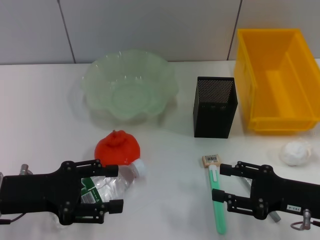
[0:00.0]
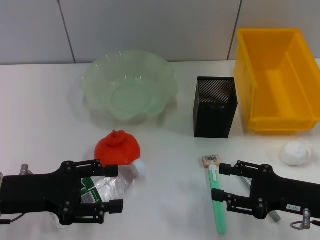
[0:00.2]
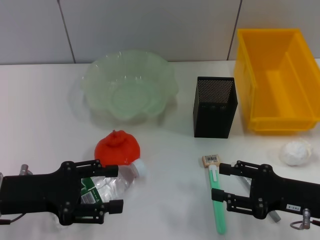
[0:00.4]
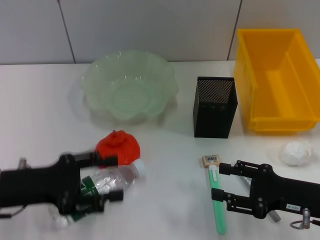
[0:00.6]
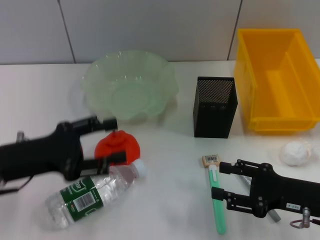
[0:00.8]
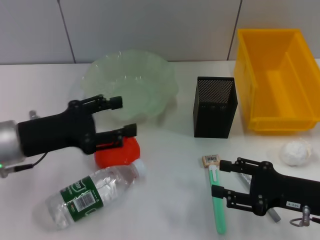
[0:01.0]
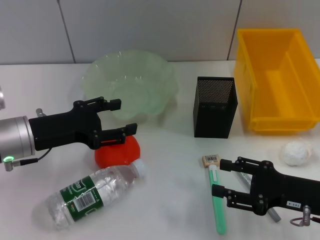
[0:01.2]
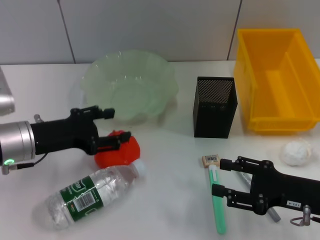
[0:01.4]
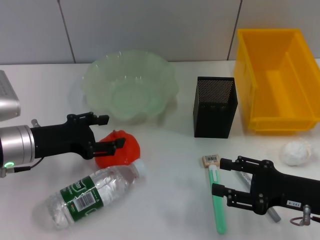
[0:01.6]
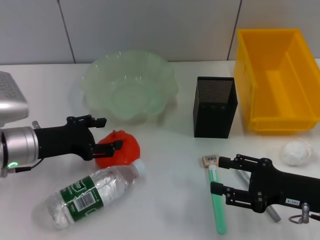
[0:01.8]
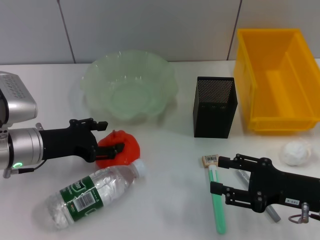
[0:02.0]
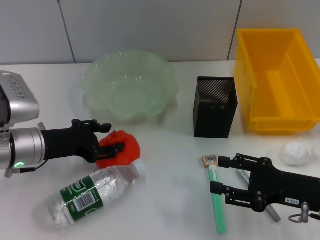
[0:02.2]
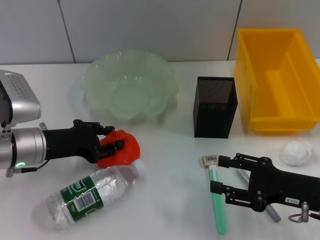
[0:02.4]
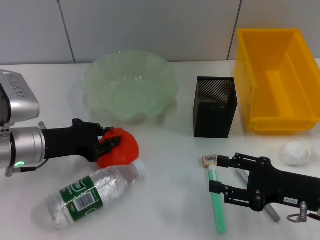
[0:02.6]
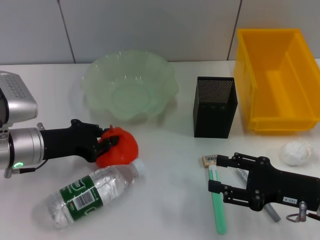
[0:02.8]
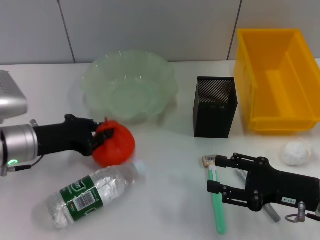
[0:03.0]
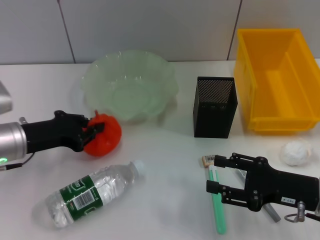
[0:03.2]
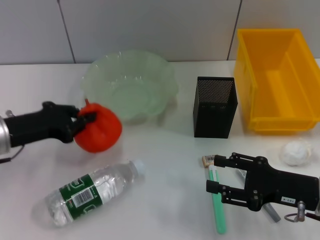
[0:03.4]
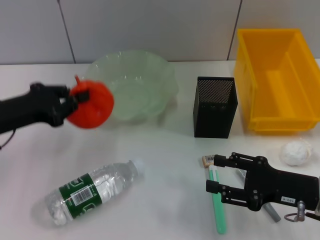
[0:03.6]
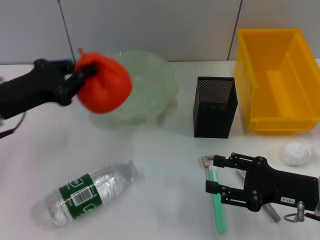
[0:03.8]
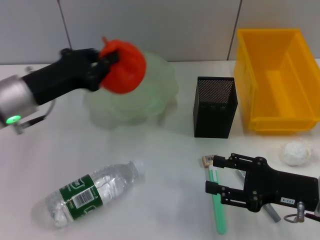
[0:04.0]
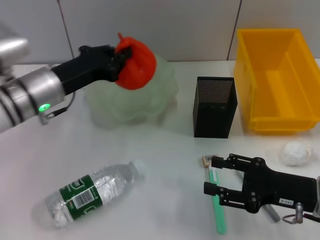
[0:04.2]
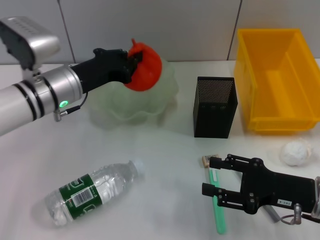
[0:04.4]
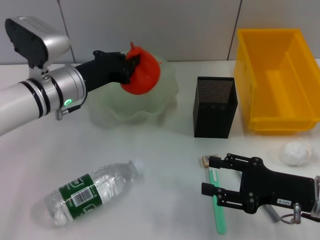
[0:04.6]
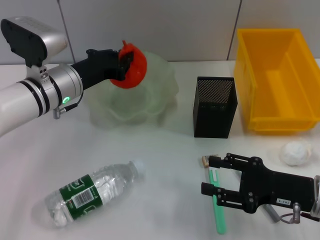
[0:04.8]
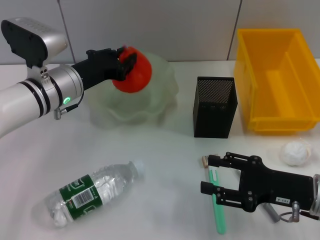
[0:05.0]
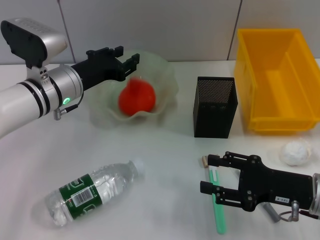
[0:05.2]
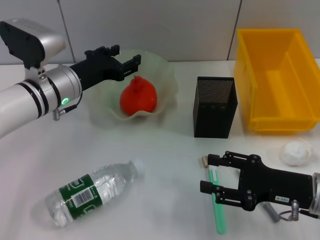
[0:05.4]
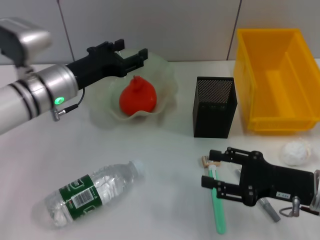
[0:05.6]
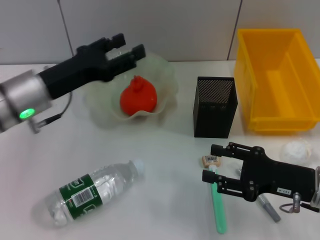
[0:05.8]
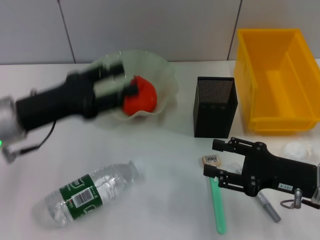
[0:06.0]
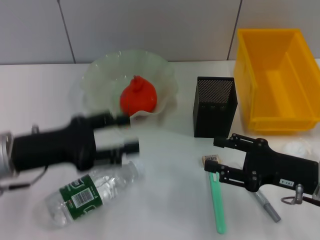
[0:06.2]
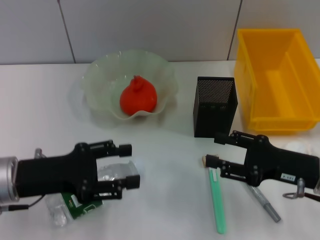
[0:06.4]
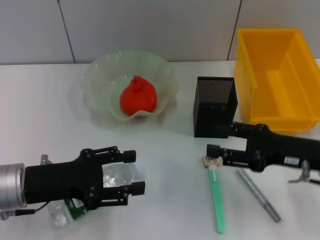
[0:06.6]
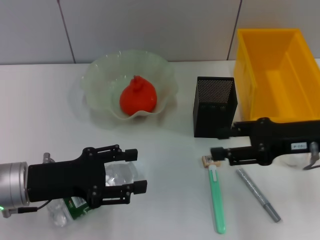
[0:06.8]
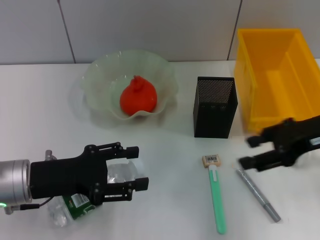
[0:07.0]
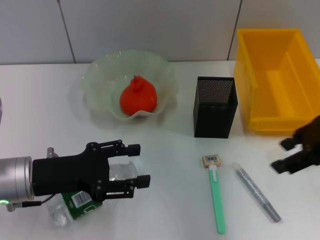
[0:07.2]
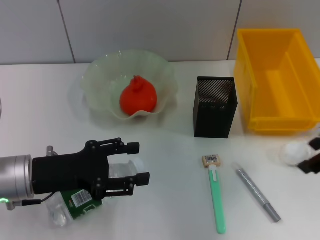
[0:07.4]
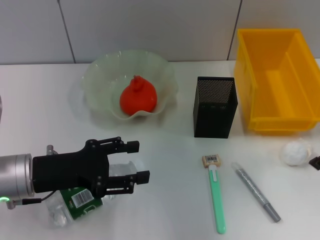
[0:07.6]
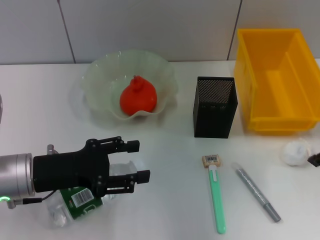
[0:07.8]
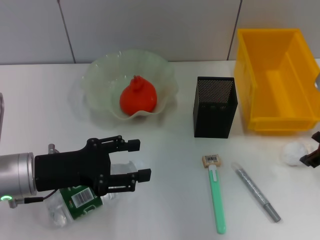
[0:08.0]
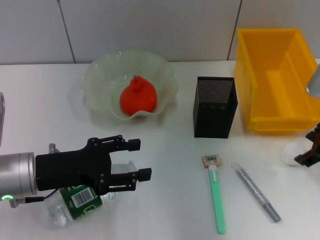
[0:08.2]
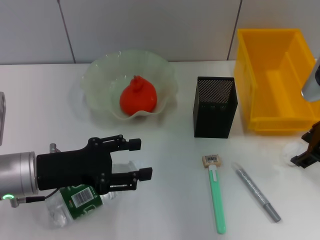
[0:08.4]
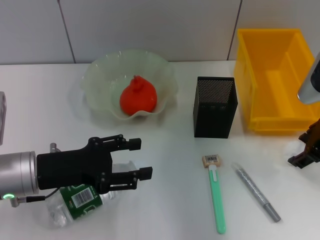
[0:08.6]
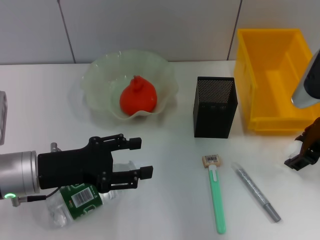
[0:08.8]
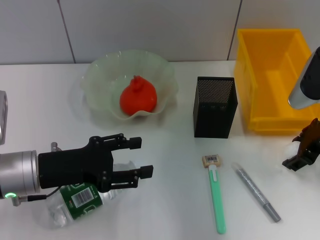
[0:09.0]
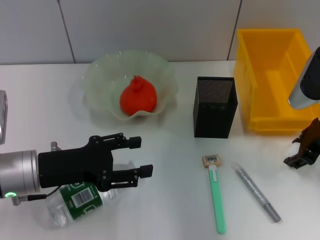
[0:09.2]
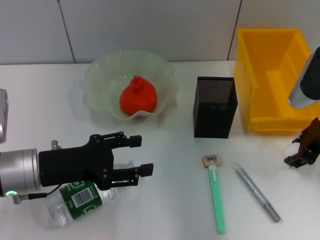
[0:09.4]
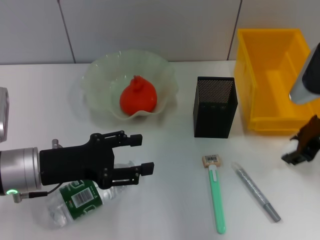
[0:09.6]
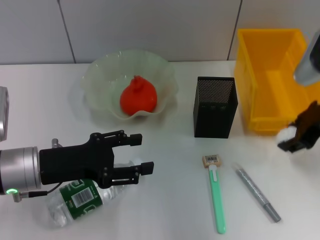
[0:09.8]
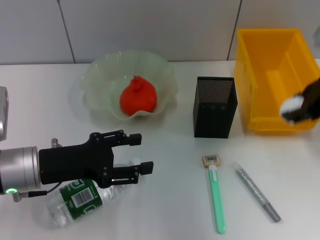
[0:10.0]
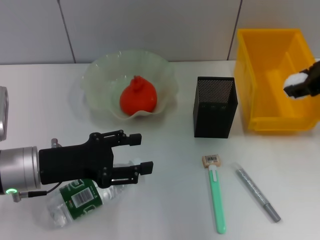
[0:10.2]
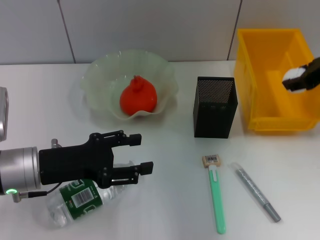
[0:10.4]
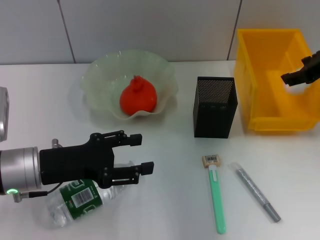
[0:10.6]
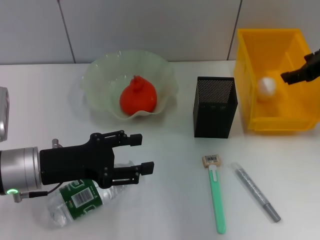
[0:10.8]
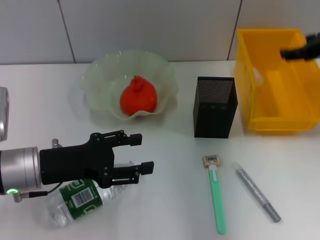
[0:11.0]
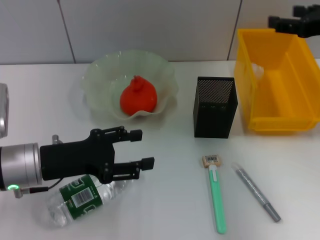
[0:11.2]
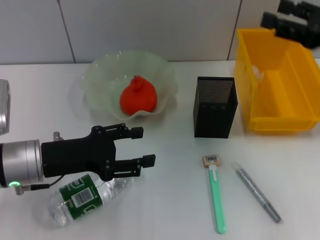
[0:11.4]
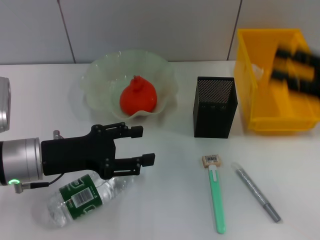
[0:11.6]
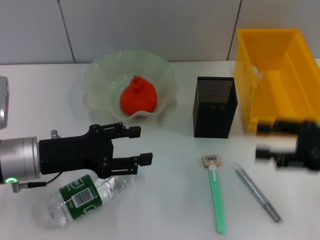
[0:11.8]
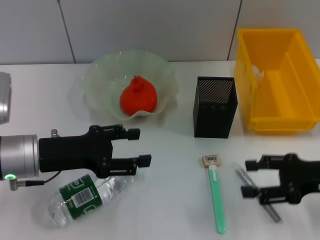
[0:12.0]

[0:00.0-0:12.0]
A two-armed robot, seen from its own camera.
Step, 0.0 to 2.6 s: Grab the orange with the left hand.
Step, 2.8 to 5.2 s: Place the orange into the fruit bowl with the left hand.
Step, 5.4 to 9.2 s: Grab the paper ball with the right hand.
Step, 9.4 to 11.4 s: Place the paper ball into the trash can with the right hand.
0.0 to 1.6 s: The left gripper is displaced forward by about 5 cm.
1.6 to 3.0 s: The left gripper closes.
3.0 to 4.4 s: The left gripper travels to the right and forward by roughly 10 cm.
4.4 to 6.0 s: The left gripper heads backward and to the left, covering approximately 10 cm, and opens its fingers.
6.0 to 7.6 s: The right gripper heads upward, covering roughly 15 cm, while the left gripper changes place by approximately 5 cm.
7.6 to 9.0 s: The right gripper travels downward by approximately 10 cm.
9.0 to 10.4 s: The right gripper shifts some 5 cm upward.
10.4 to 12.0 s: The right gripper is displaced downward and backward by about 15 cm, and opens.

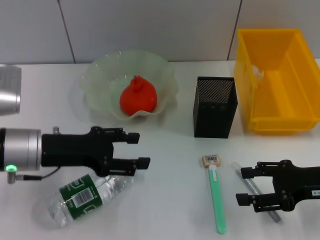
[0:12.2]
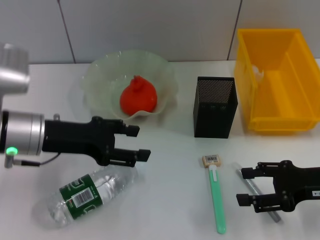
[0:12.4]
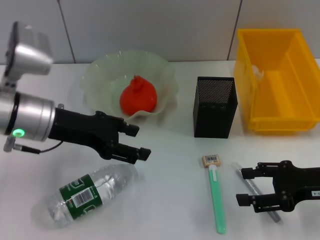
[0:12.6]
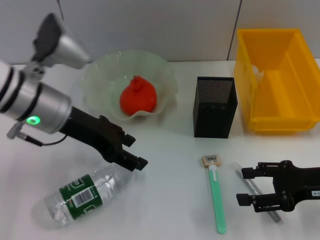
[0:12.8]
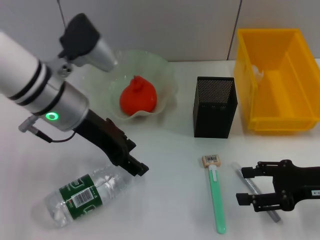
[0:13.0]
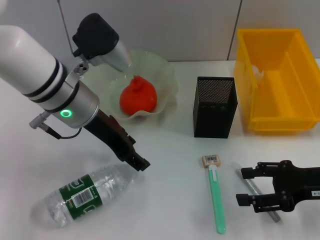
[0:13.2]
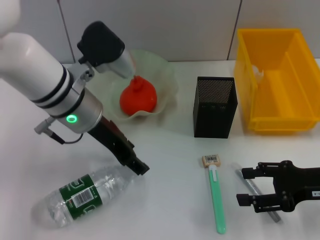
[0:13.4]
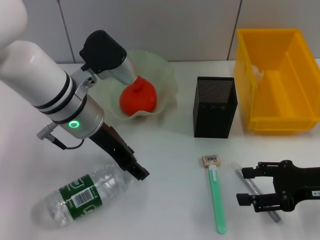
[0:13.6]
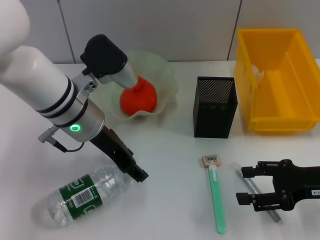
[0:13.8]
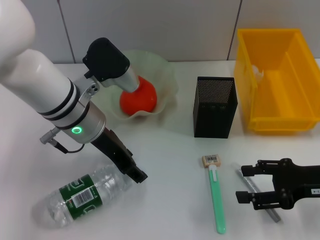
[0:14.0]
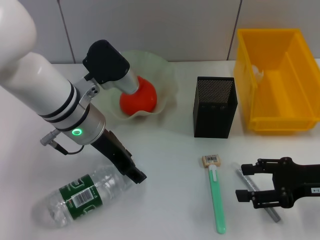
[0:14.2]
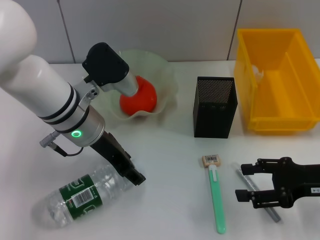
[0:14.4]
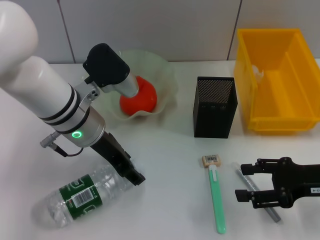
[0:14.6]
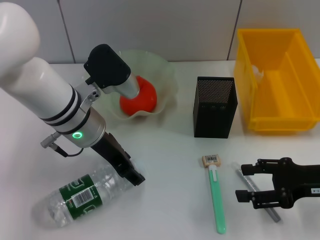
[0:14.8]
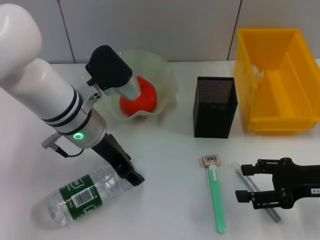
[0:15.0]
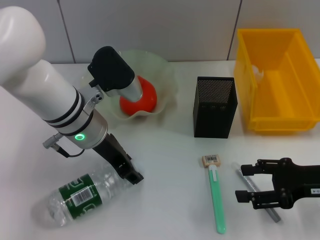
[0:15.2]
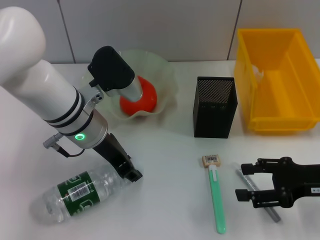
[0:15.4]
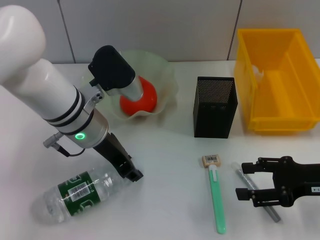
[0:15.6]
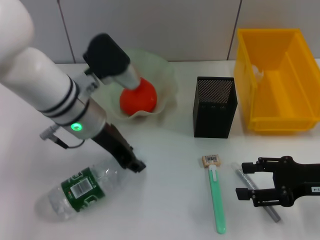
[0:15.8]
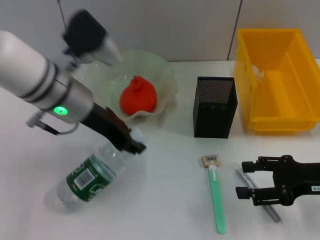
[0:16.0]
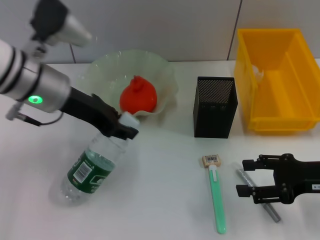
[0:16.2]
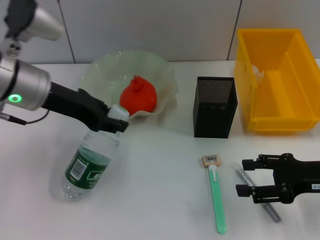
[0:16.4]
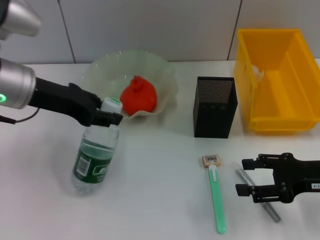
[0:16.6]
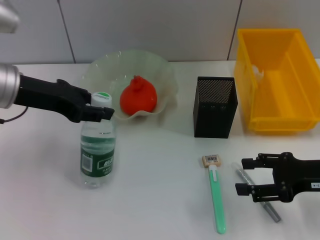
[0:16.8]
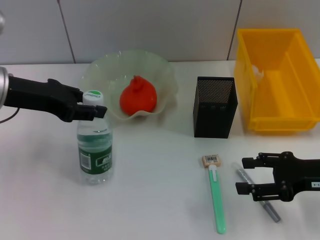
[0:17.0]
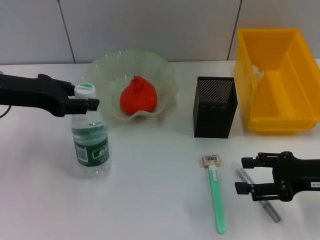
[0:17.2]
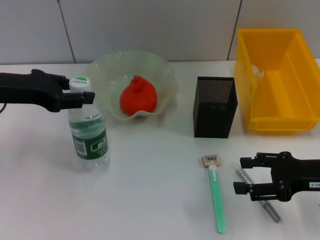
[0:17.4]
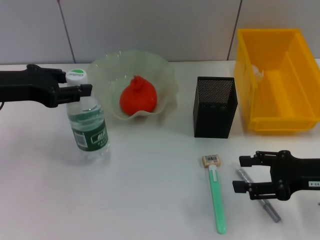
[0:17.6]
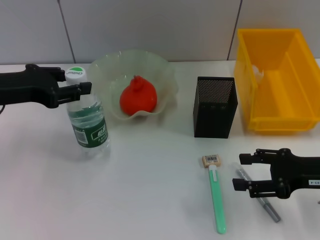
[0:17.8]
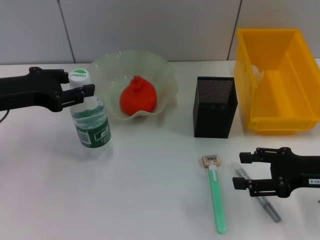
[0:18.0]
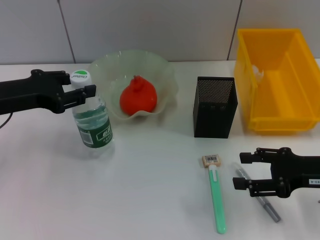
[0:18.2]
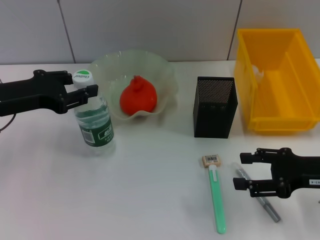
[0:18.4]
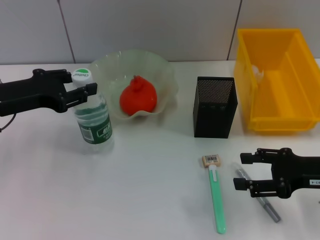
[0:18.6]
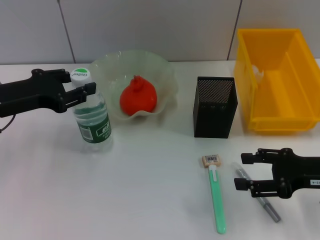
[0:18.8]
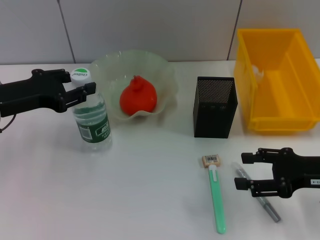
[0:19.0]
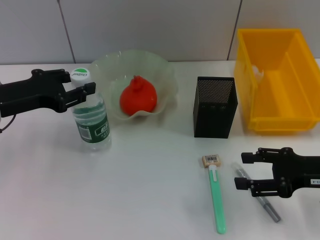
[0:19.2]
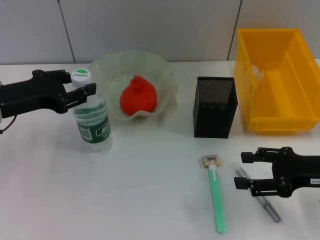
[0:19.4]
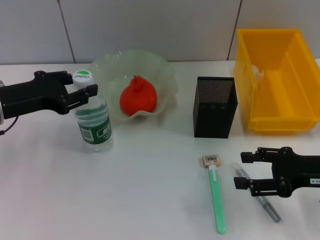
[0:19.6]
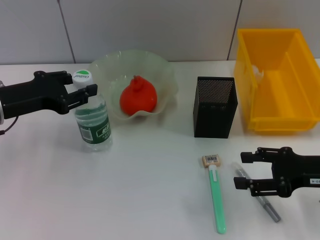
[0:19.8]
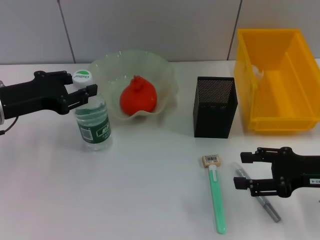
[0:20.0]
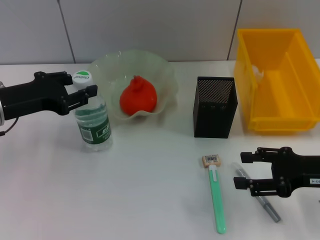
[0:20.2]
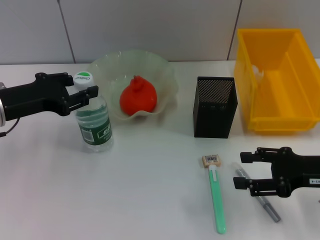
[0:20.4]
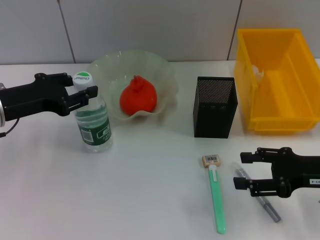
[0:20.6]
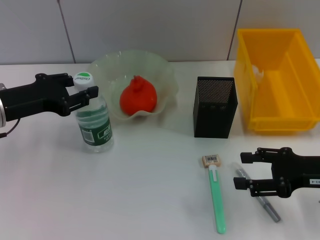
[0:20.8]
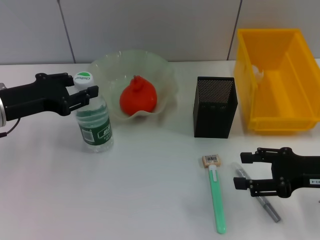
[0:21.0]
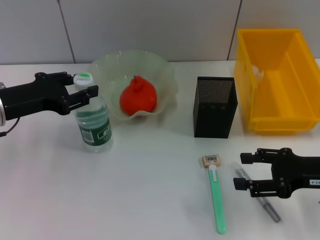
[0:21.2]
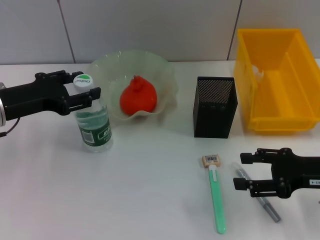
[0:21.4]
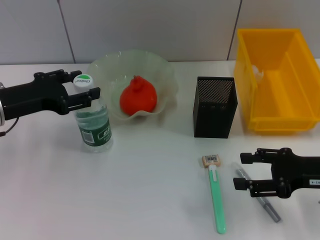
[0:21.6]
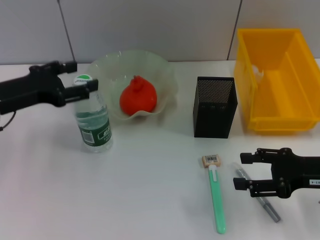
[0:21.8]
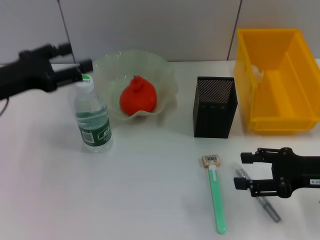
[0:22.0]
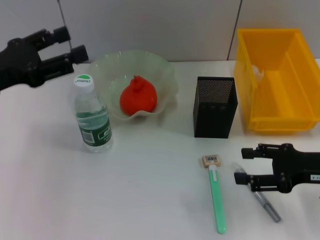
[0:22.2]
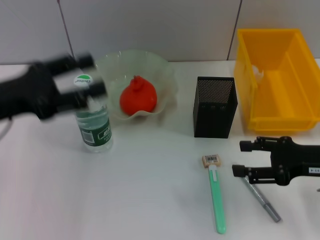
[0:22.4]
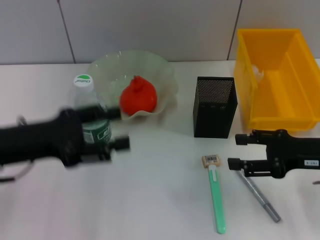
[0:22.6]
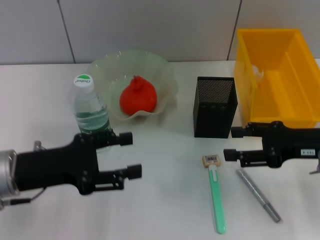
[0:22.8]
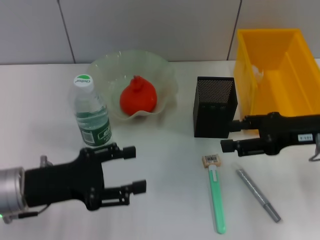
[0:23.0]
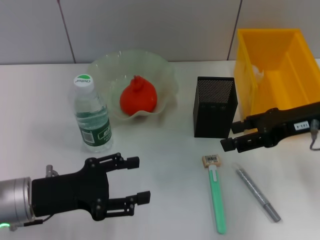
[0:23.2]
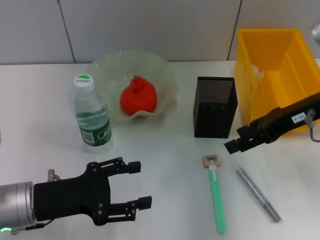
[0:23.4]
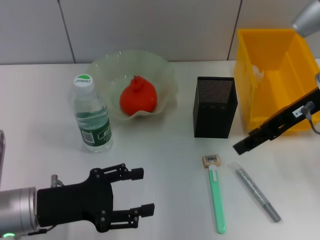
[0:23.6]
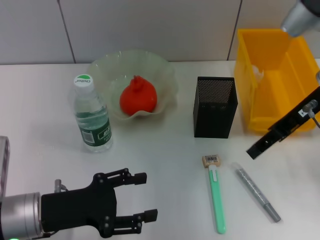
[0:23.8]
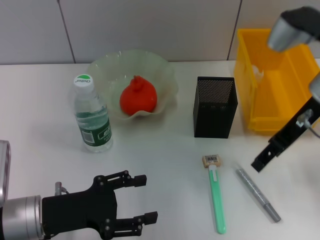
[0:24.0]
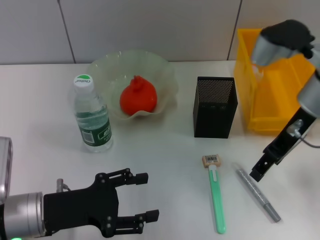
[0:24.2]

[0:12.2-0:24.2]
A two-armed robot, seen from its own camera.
Step, 12.2 to 15.4 s: Grab the water bottle with the left hand.
Step, 15.6 to 21.2 s: Place the water bottle on the table with the left hand.
12.2 to 13.8 s: The left gripper is displaced to the right and forward by some 10 cm.
13.8 to 15.2 s: The grippers move only a little.
15.2 to 16.6 s: The left gripper moves to the left and upward, some 10 cm, and closes up.
16.6 to 18.2 s: The left gripper goes some 5 cm to the left.
18.2 to 19.8 s: The grippers make only small movements.
19.8 to 21.2 s: Neither gripper changes place.
21.2 to 22.6 s: The left gripper goes approximately 5 cm backward, and opens up.
22.6 to 24.2 s: The right gripper shifts roughly 15 cm to the left, upward and forward, while the left gripper goes about 10 cm downward.
